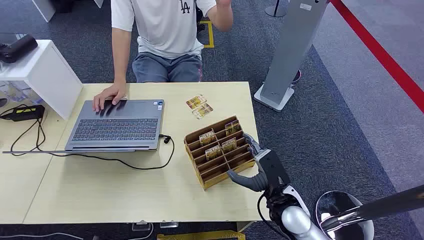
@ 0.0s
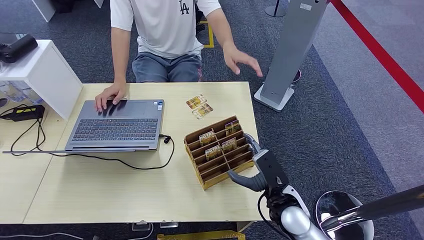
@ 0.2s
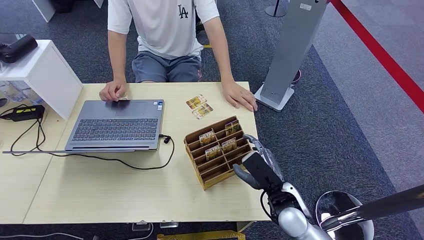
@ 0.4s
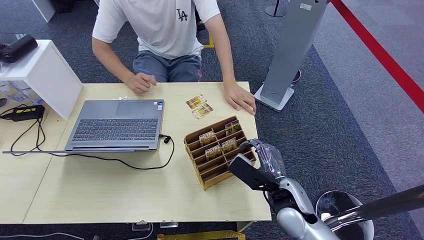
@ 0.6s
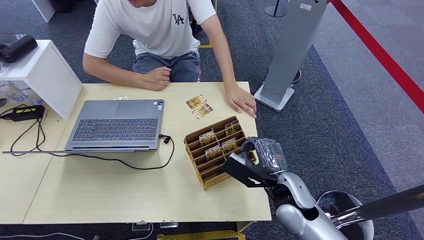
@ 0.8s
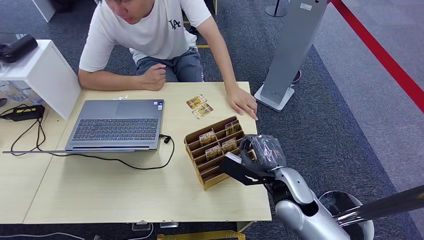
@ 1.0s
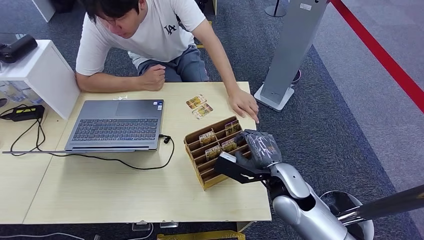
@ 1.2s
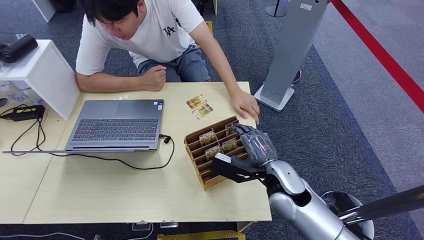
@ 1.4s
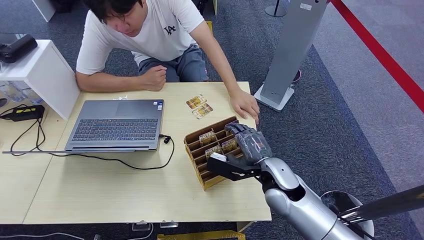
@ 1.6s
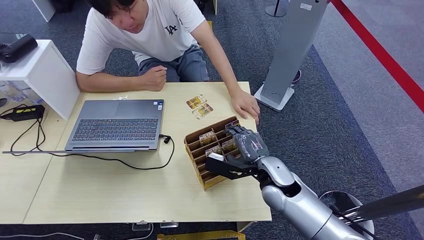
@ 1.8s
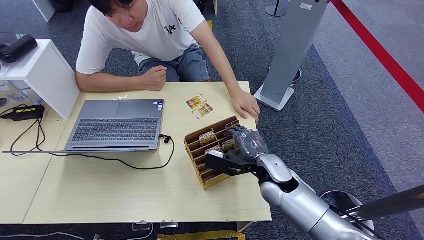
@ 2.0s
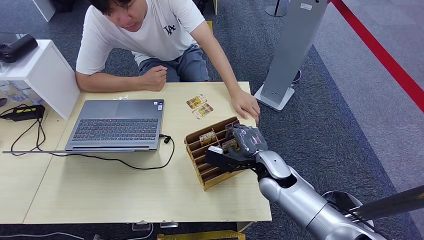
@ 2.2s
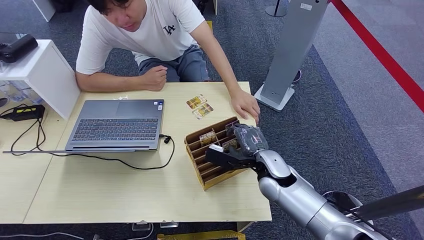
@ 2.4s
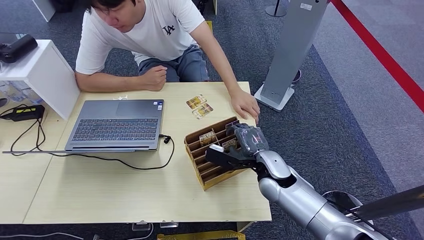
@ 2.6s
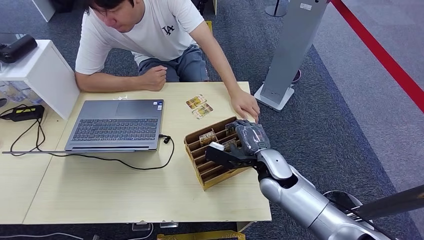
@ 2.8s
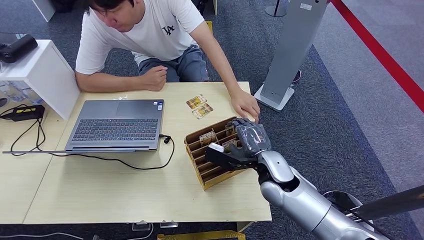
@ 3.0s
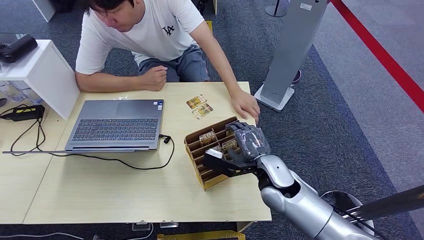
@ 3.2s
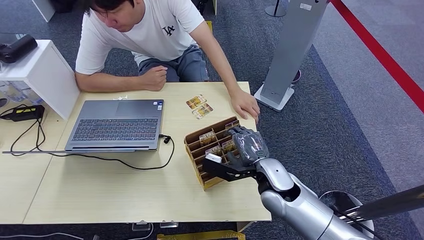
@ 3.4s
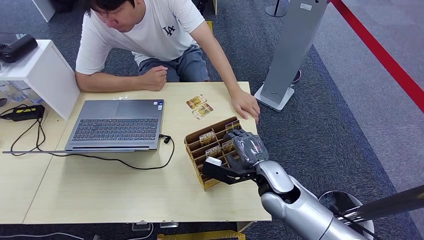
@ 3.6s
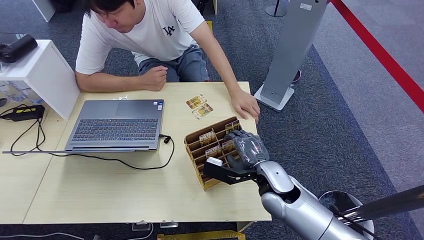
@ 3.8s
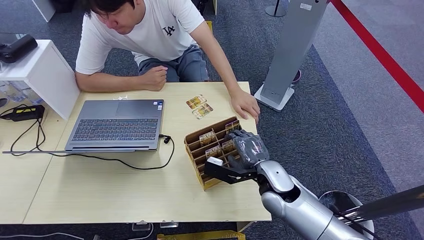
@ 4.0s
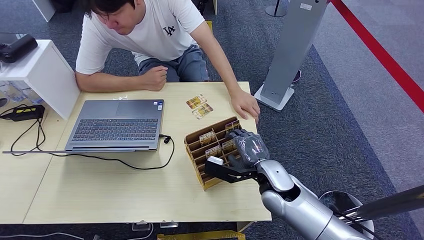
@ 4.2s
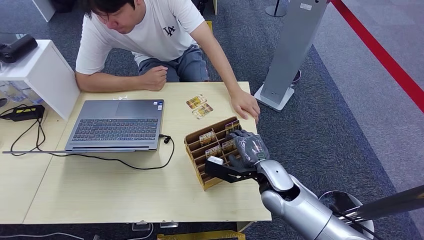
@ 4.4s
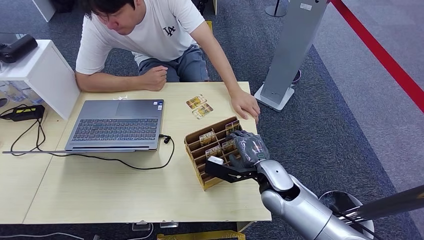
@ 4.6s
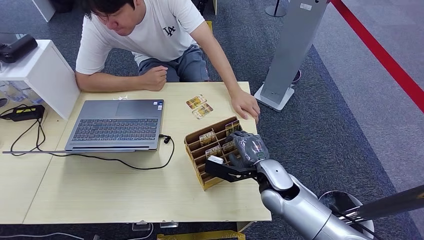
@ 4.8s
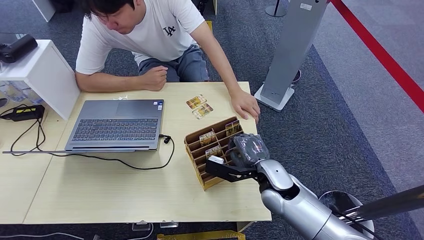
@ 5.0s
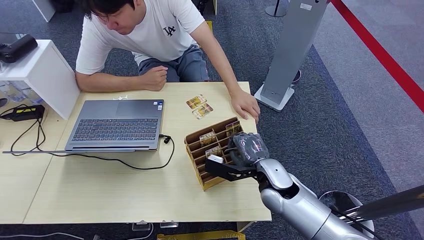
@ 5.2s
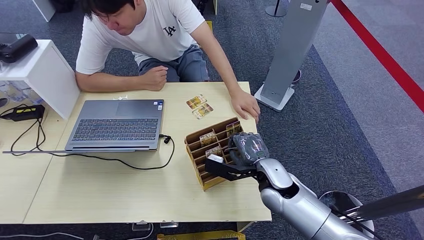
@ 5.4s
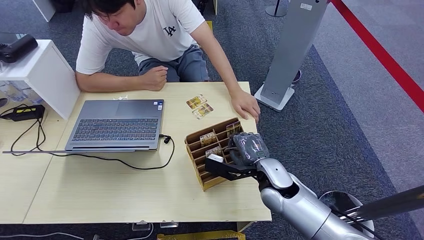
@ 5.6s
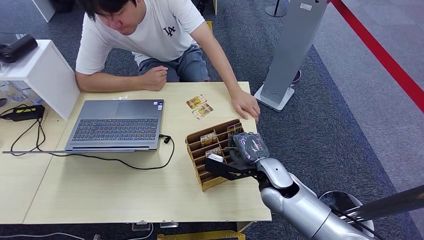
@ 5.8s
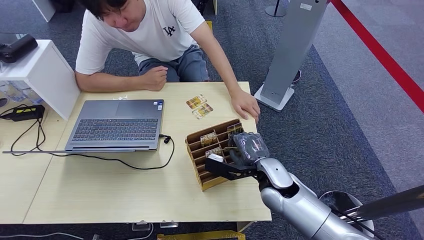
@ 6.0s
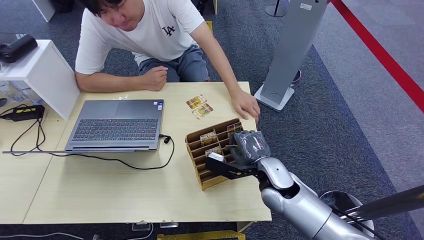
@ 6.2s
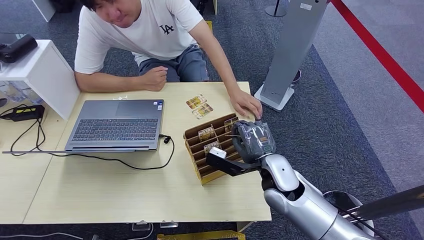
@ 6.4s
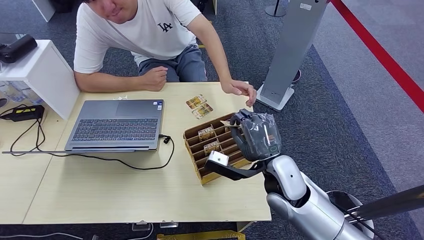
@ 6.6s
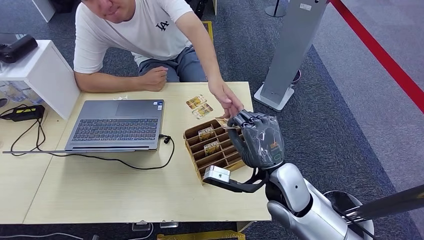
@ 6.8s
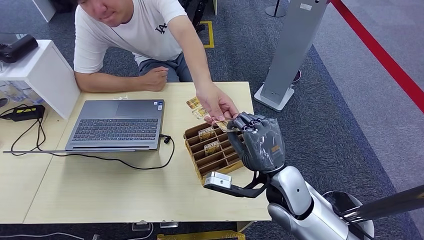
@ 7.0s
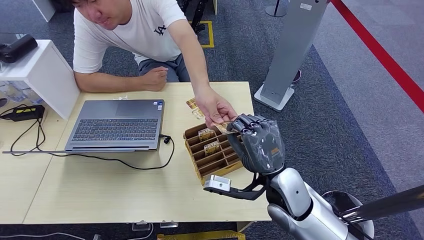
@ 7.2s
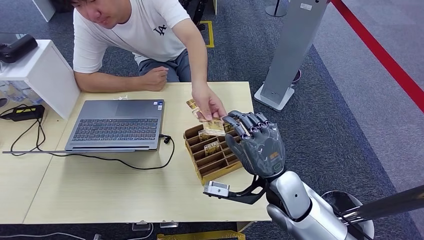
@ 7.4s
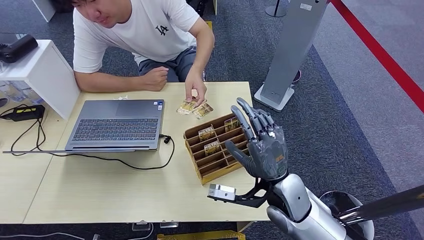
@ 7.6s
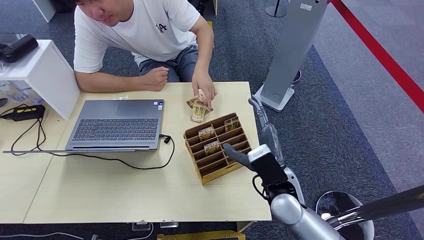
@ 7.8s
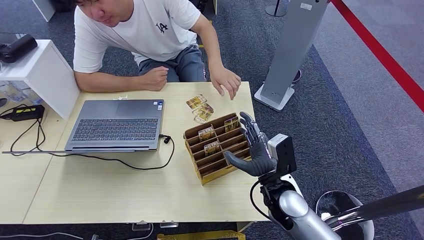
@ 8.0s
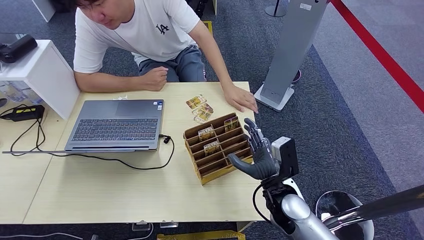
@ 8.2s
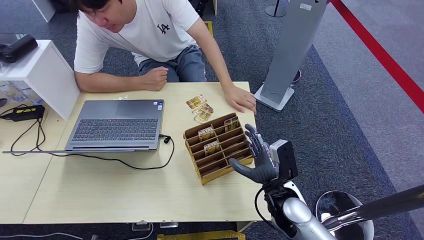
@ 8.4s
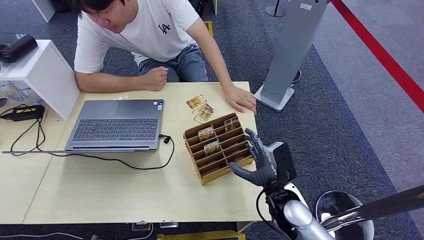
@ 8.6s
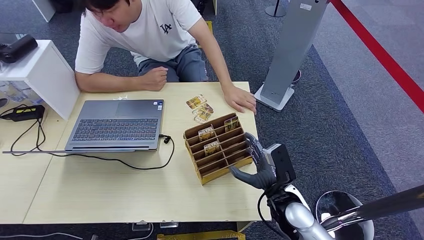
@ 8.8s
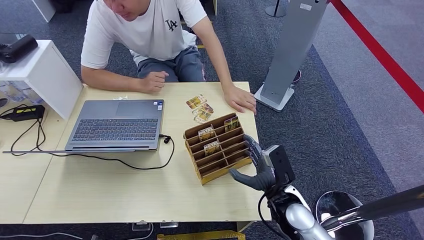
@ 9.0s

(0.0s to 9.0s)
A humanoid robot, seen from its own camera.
Step, 0.0s - 6.4s: Pick up the key card from the card box.
Step, 6.6s - 9.0s: Hand the key card to the target.
1.6s - 4.4s: There are only small adjustments of the hands.
4.4s - 6.0s: Both hands stay put.
6.0s - 7.6s: The right hand goes about 5 cm backward and upward.
7.6s - 9.0s: The right hand moves downward, approximately 10 cm.

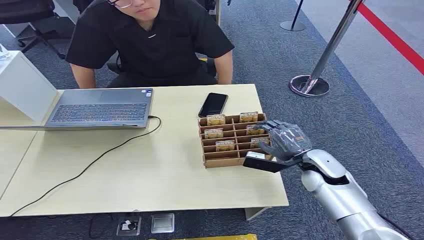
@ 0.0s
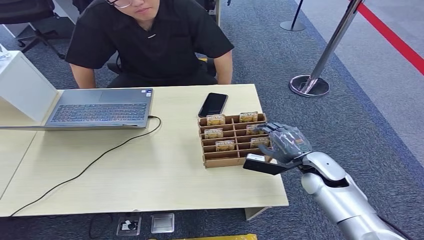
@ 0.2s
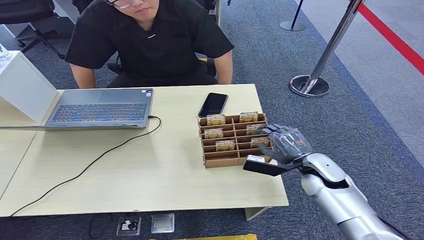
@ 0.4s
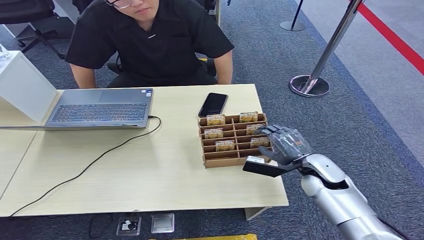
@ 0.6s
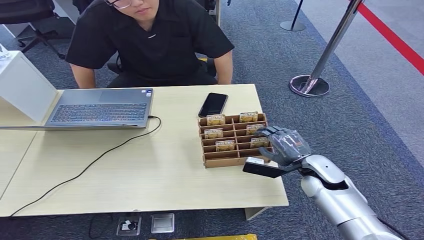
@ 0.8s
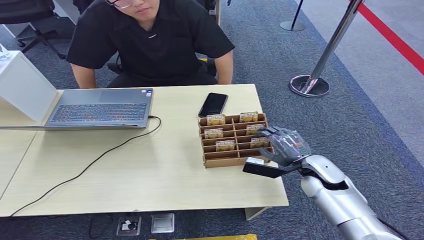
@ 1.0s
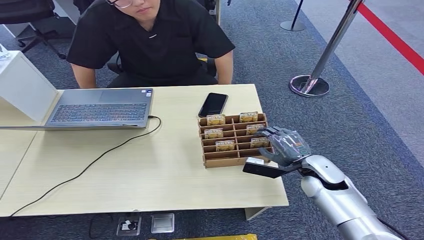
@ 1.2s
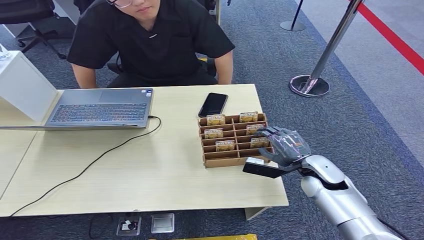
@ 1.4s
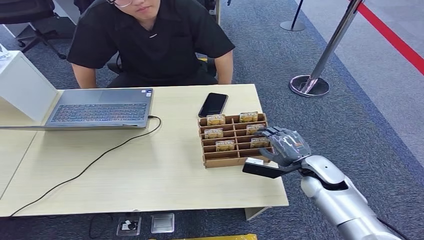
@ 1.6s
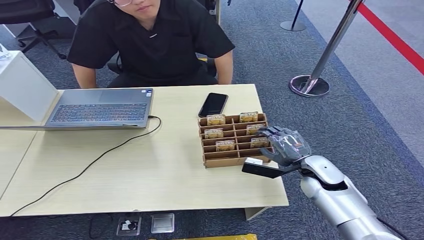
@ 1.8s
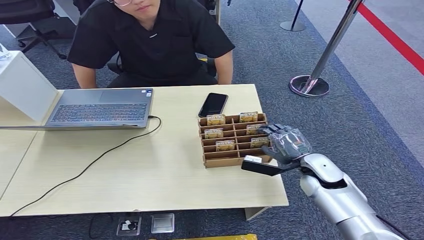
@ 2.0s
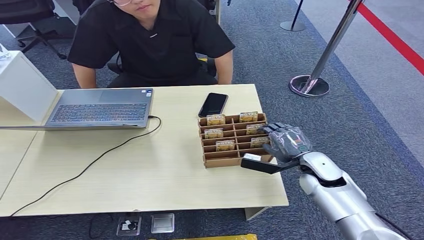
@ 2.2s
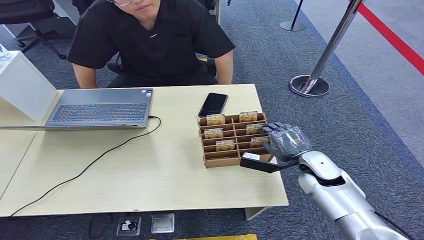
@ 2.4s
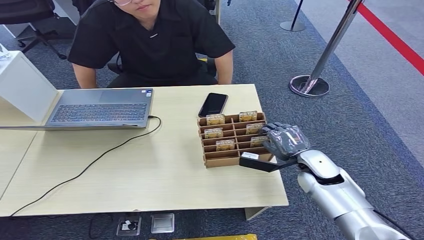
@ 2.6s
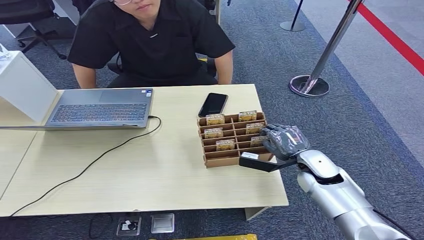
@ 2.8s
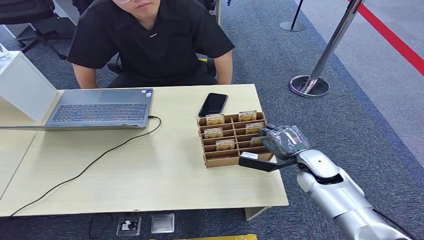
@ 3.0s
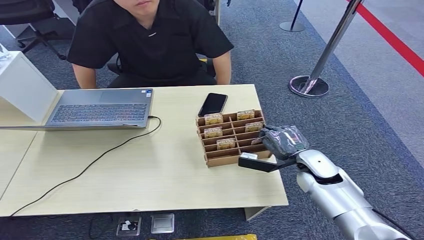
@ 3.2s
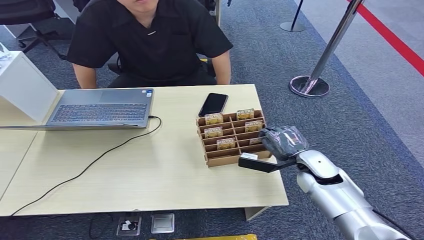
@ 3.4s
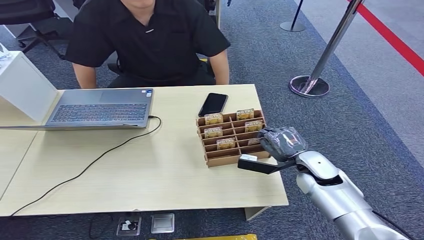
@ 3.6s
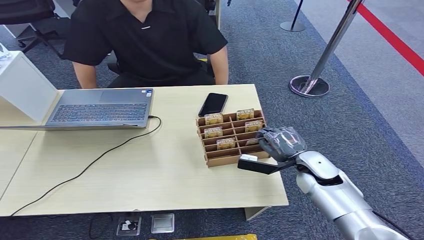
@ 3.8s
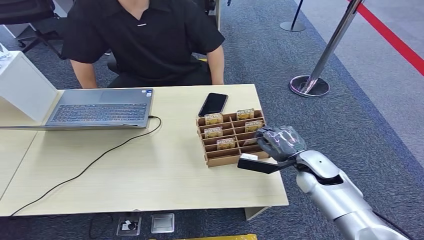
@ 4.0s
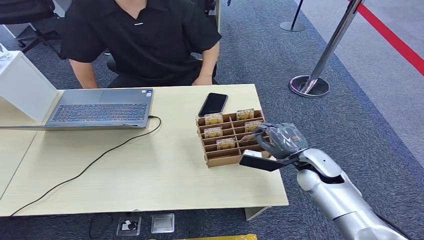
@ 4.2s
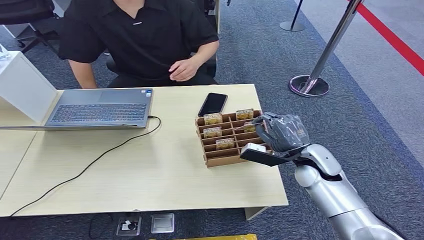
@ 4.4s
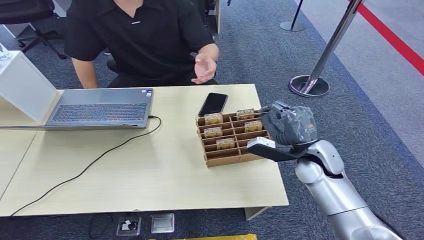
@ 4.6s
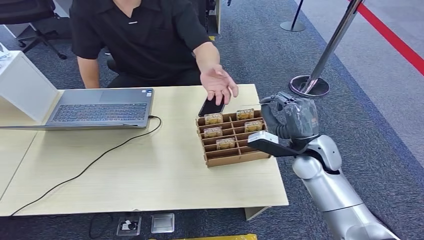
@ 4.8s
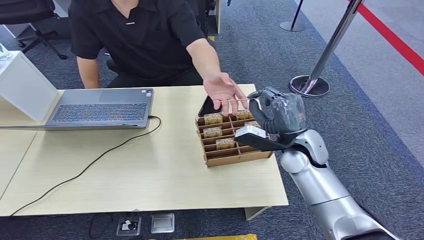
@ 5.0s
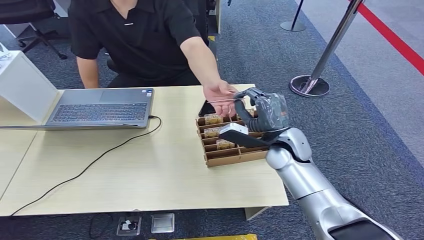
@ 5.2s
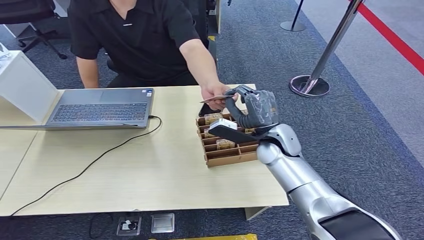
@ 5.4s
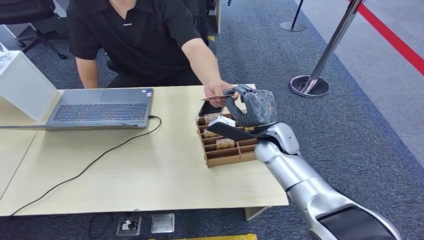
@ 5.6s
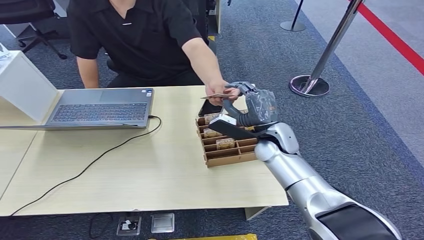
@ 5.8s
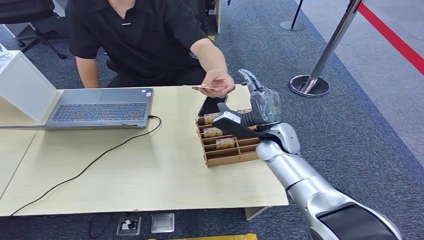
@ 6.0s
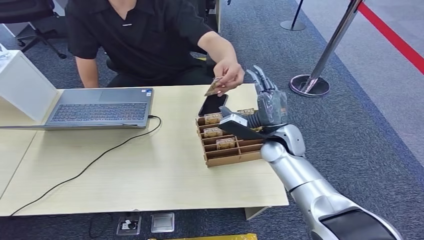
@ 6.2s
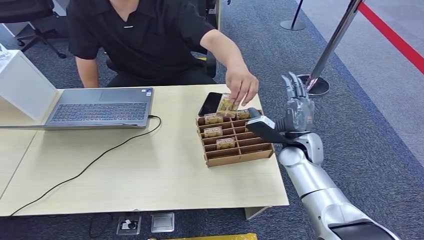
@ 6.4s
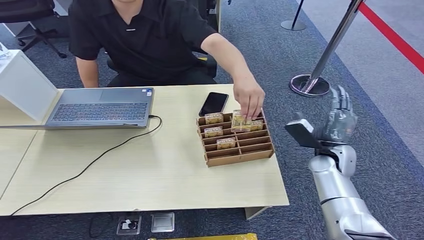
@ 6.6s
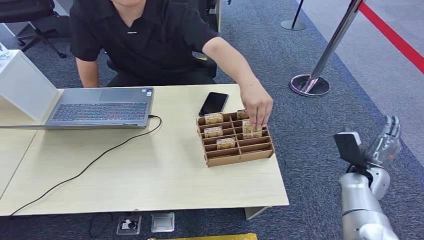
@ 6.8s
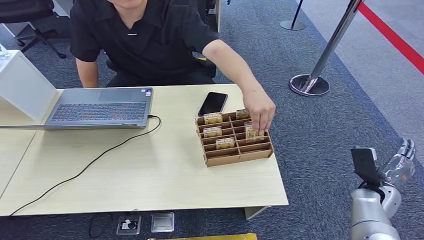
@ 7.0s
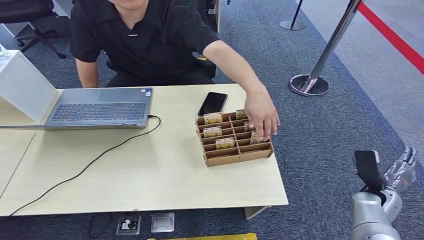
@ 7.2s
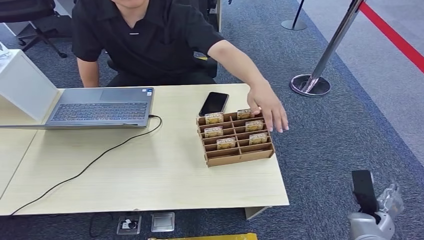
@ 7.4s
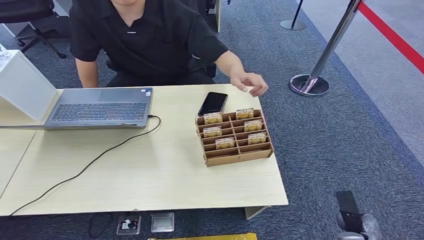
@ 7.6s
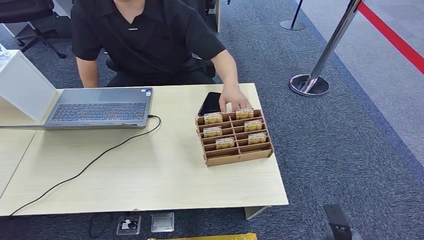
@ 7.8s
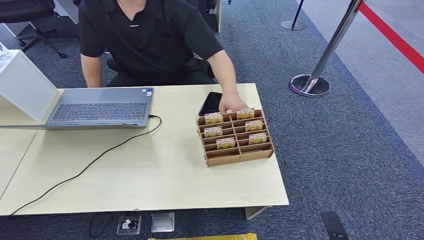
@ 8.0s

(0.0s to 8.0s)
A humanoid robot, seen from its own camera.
Step, 0.0s - 4.4s: Pick up the key card from the card box.
Step, 4.6s - 8.0s: Hand the key card to the target.
1.6s - 3.2s: The hands make only small movements.
3.2s - 4.8s: The right hand is displaced upward by roughly 10 cm.
6.4s - 8.0s: The right hand goes about 40 cm backward and downward.
